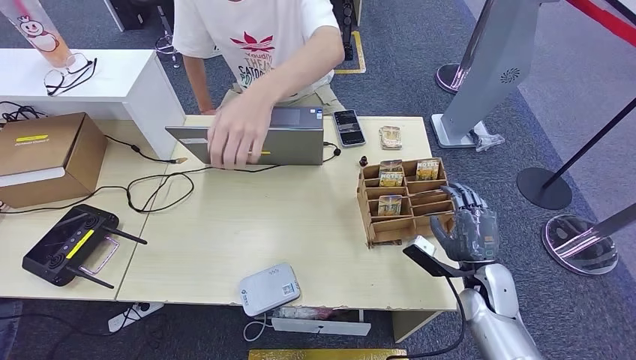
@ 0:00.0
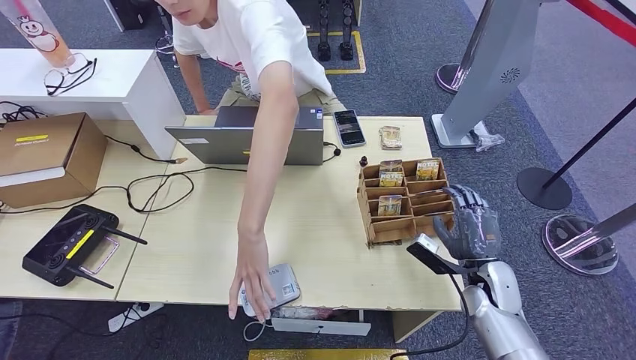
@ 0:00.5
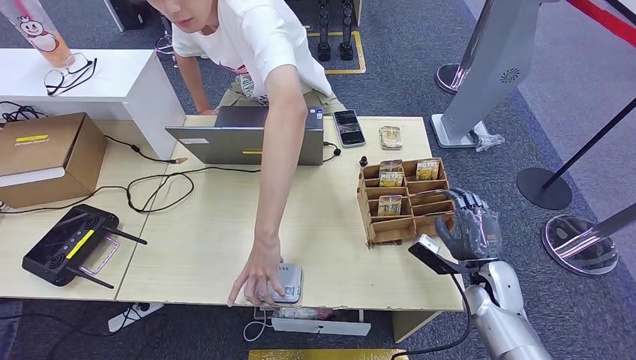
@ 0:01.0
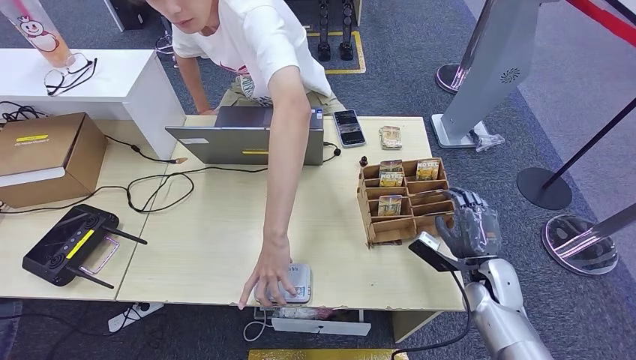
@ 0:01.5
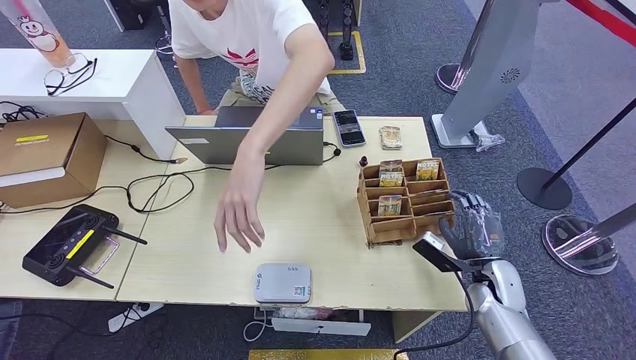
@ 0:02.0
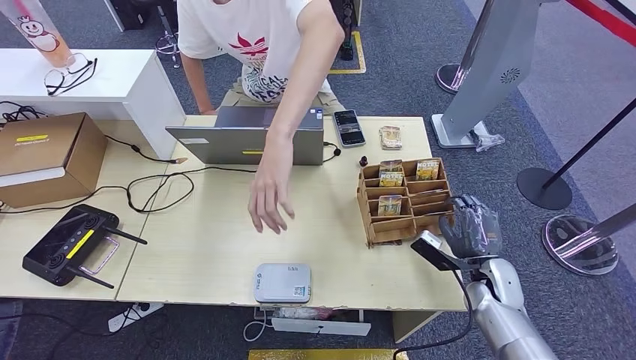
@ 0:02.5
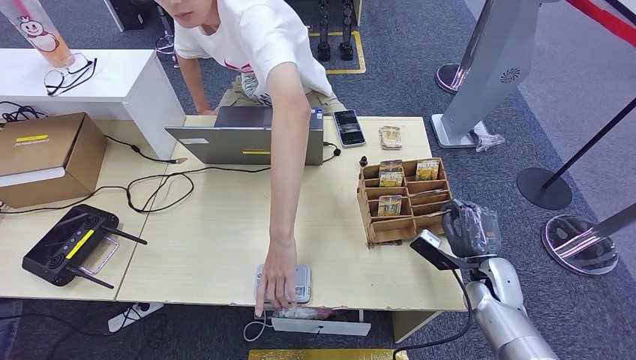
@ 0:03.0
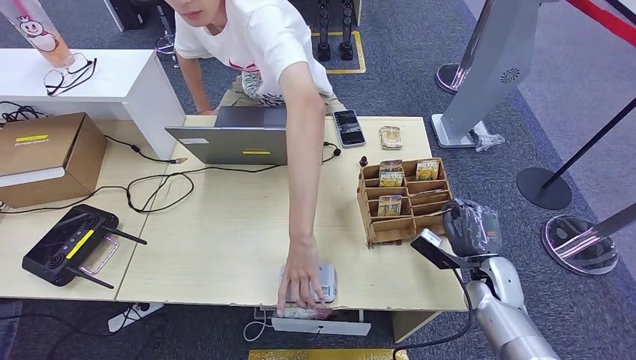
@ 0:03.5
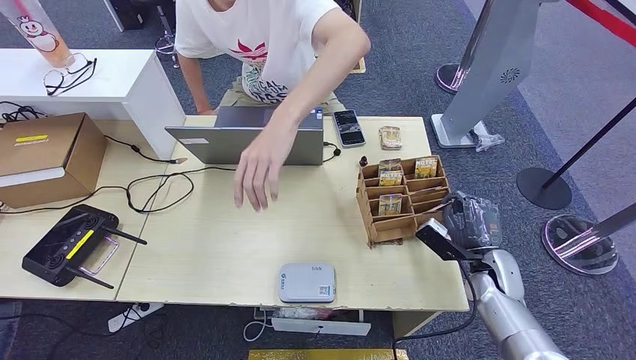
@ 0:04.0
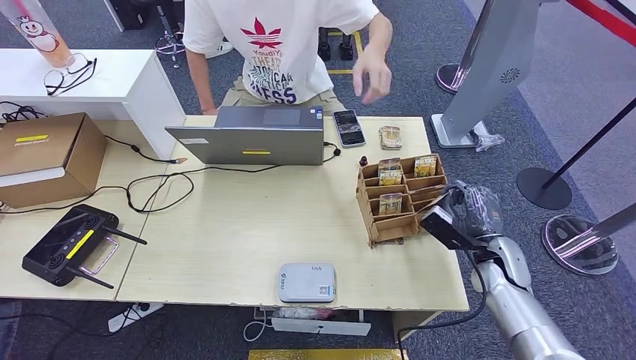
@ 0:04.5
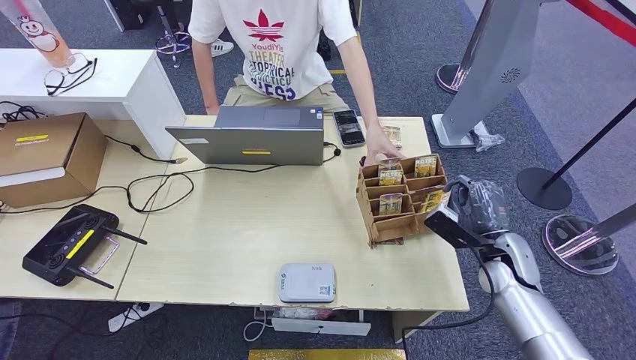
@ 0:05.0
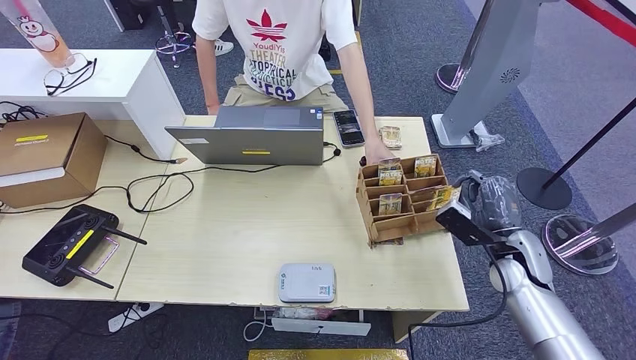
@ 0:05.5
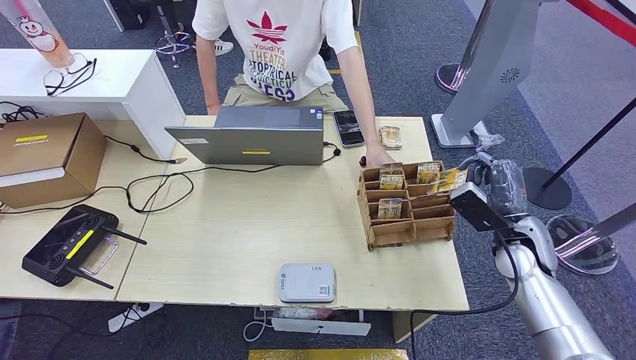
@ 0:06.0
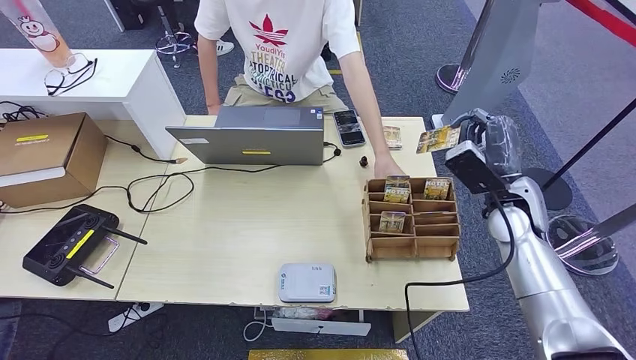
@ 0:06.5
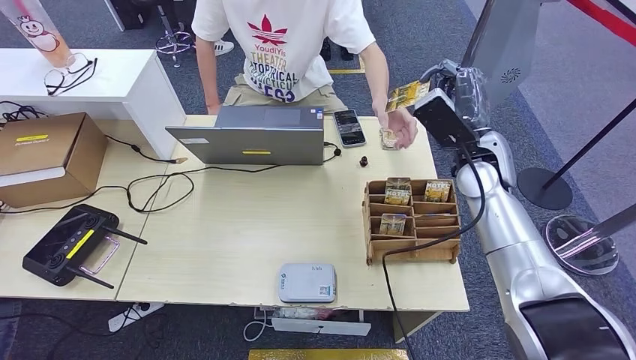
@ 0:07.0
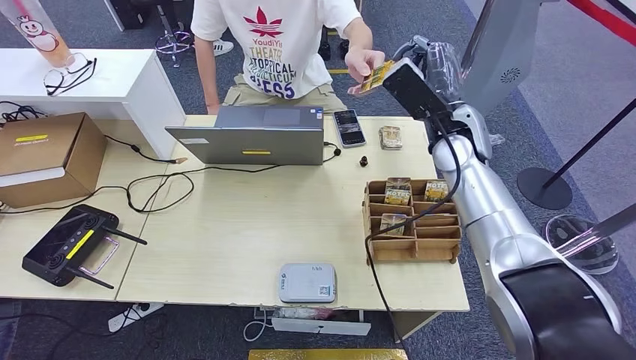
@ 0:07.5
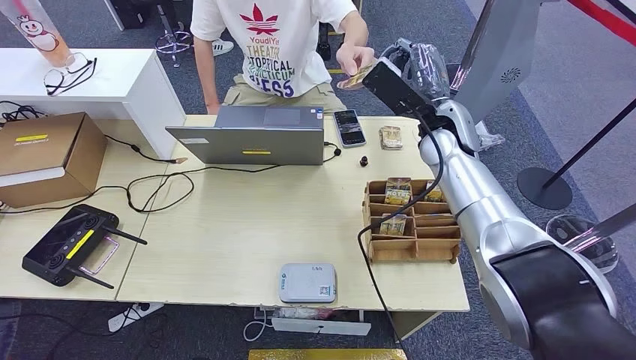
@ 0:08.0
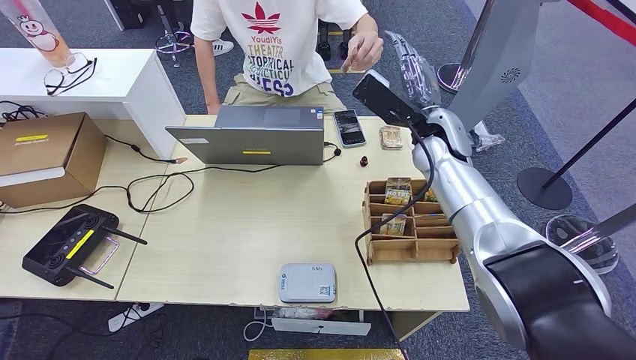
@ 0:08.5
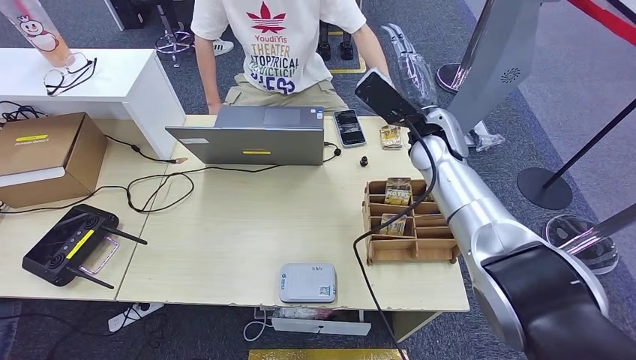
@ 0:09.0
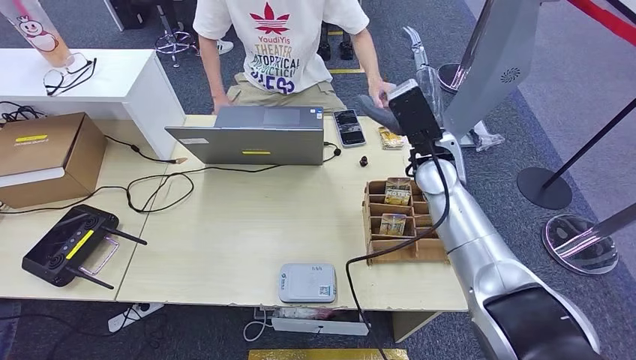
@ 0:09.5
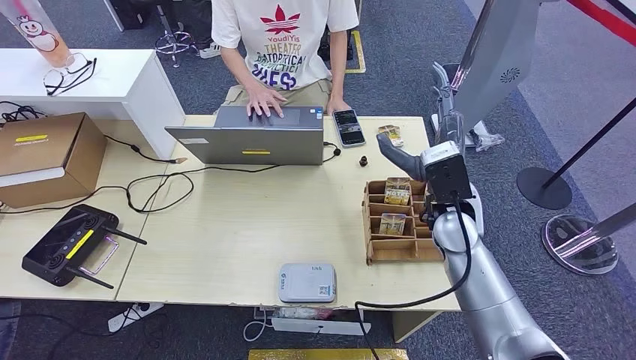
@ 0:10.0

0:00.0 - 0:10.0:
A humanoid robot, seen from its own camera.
Step, 0:00.0 - 0:04.5: Pick up the room key from the key card box.
Step, 0:05.0 - 0:10.0: Hand the room key to the person.
0:00.0 - 0:04.0: The hands make only small movements.
0:04.0 - 0:06.0: The right hand moves upward, roughly 10 cm.
0:06.0 - 0:08.0: The right hand goes approximately 25 cm upward, forward and to the left.
0:08.0 - 0:10.0: The right hand is displaced backward and downward by roughly 15 cm.
